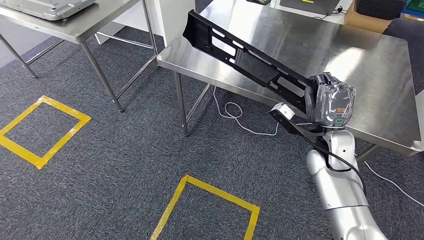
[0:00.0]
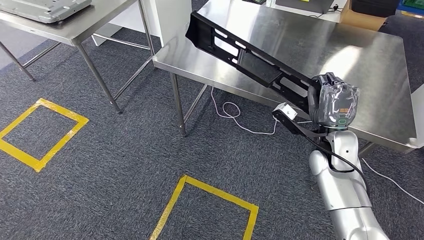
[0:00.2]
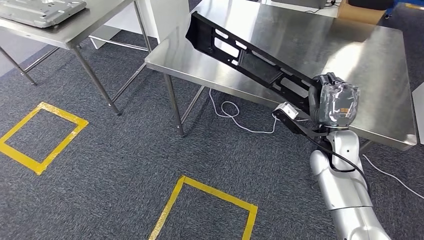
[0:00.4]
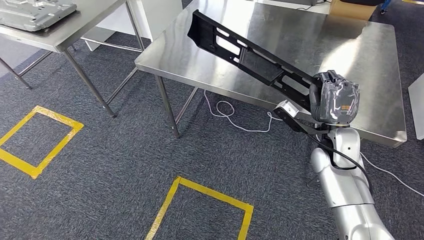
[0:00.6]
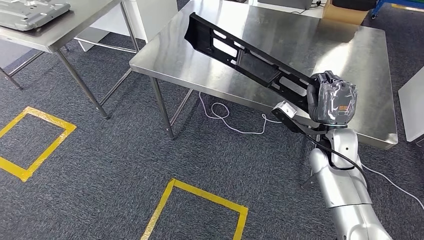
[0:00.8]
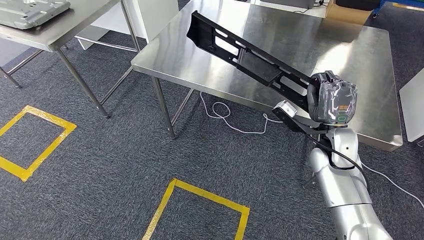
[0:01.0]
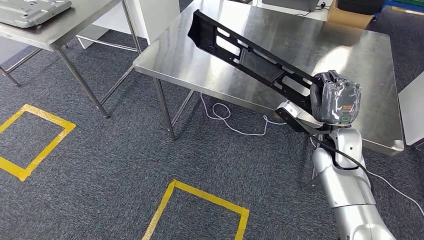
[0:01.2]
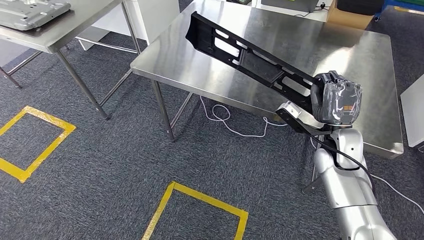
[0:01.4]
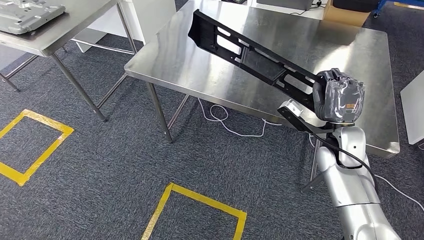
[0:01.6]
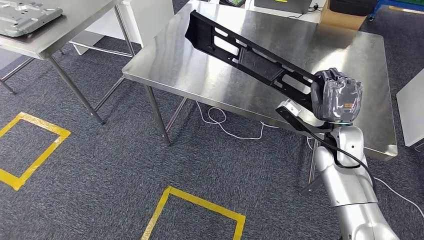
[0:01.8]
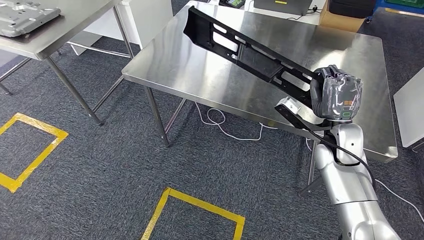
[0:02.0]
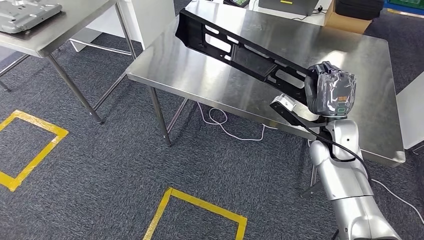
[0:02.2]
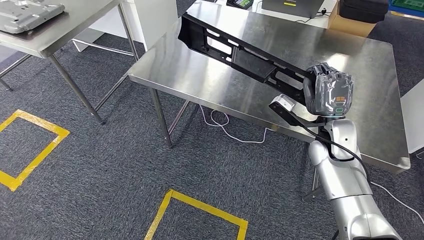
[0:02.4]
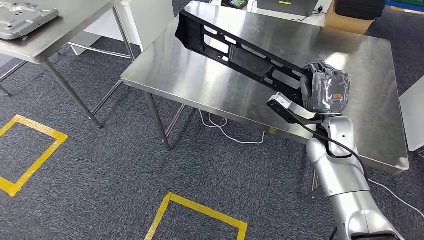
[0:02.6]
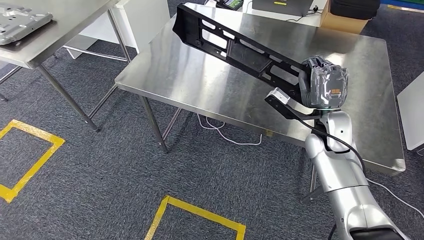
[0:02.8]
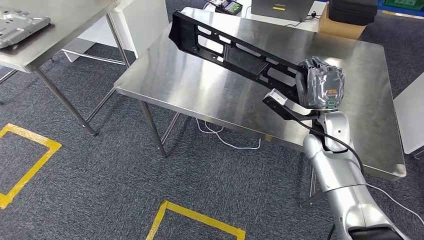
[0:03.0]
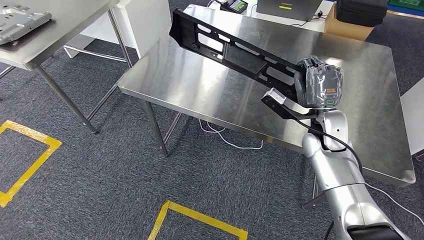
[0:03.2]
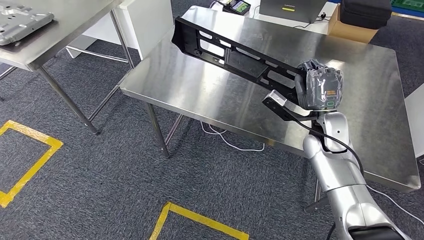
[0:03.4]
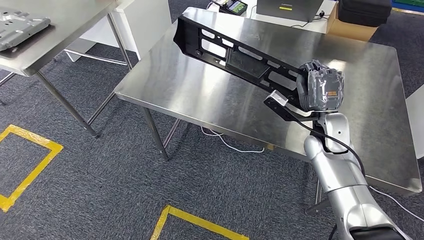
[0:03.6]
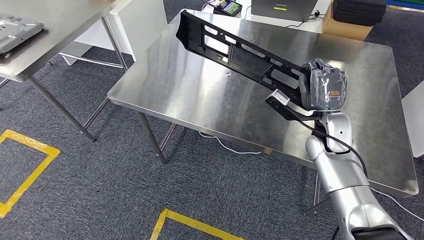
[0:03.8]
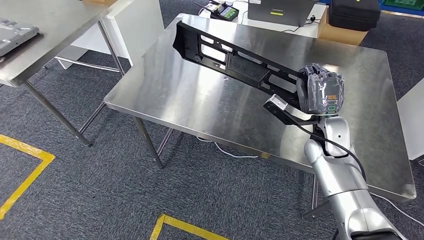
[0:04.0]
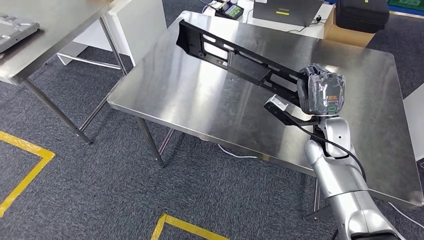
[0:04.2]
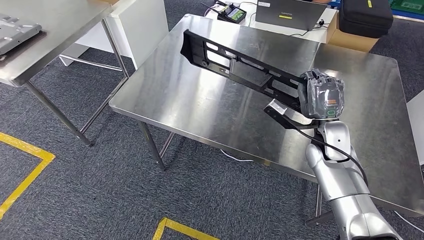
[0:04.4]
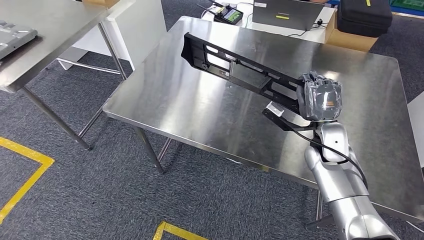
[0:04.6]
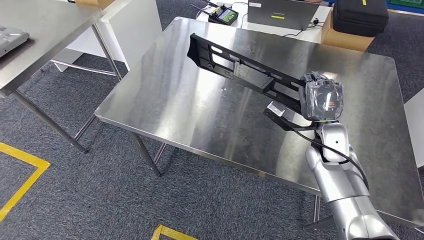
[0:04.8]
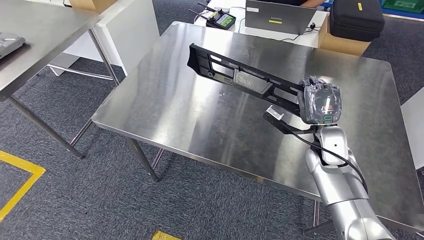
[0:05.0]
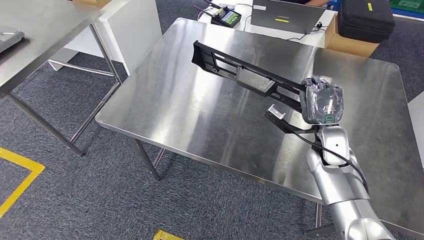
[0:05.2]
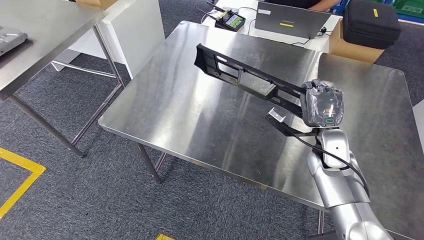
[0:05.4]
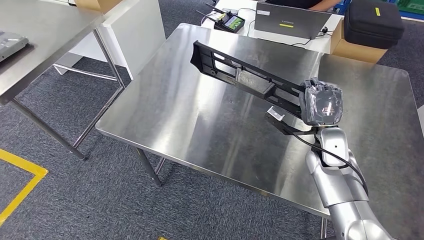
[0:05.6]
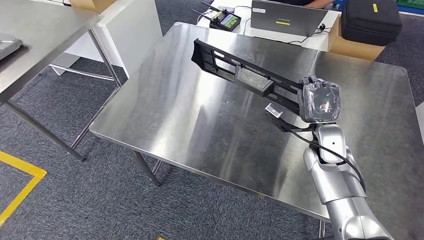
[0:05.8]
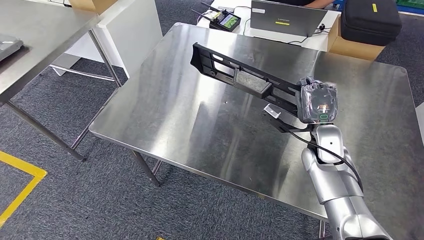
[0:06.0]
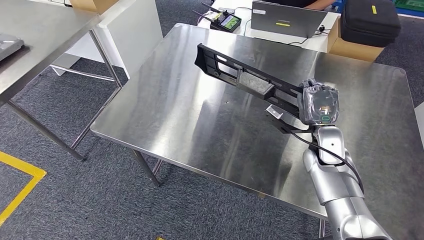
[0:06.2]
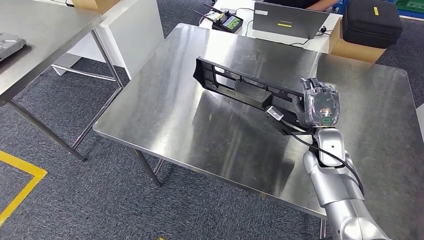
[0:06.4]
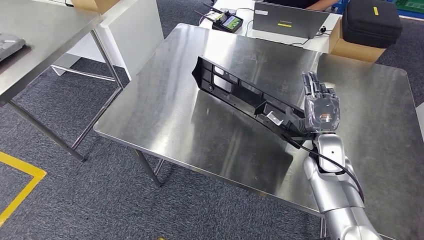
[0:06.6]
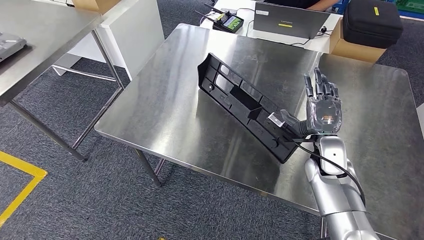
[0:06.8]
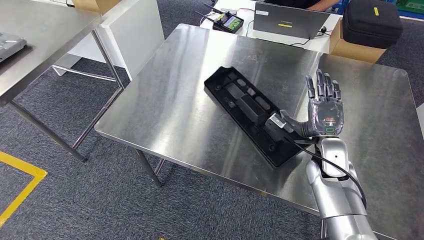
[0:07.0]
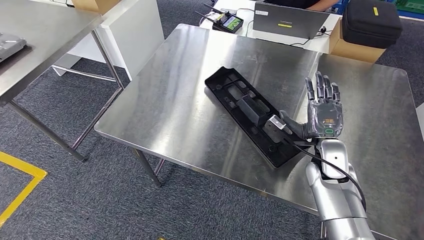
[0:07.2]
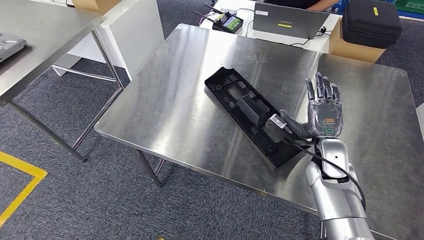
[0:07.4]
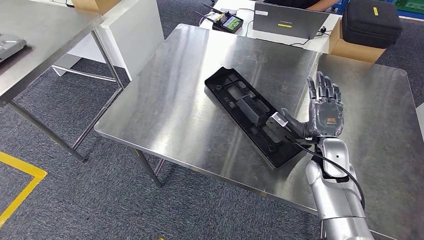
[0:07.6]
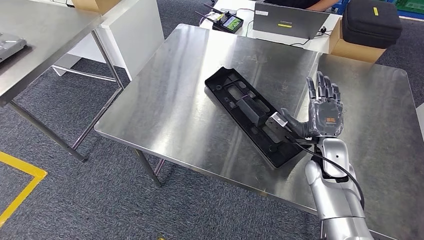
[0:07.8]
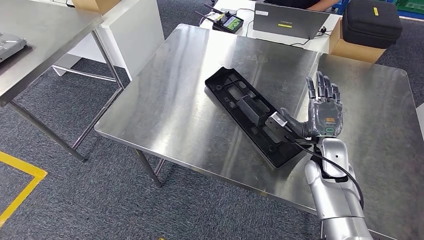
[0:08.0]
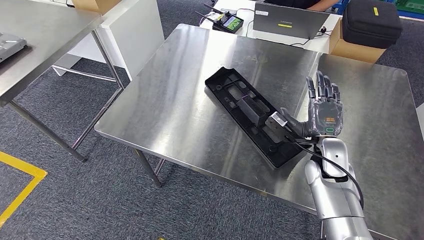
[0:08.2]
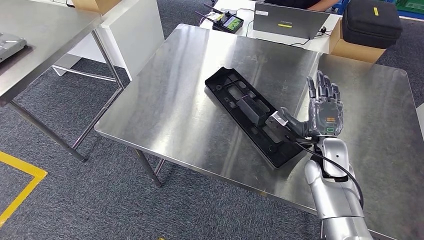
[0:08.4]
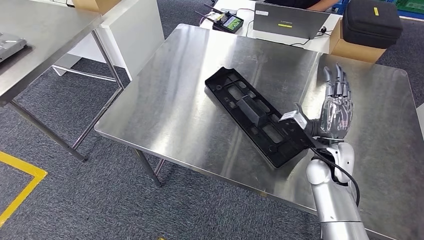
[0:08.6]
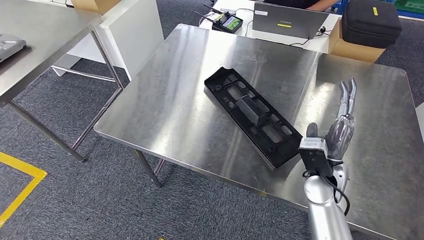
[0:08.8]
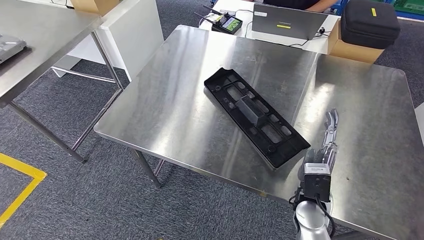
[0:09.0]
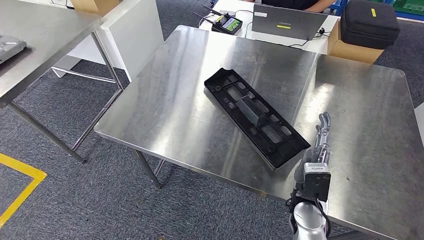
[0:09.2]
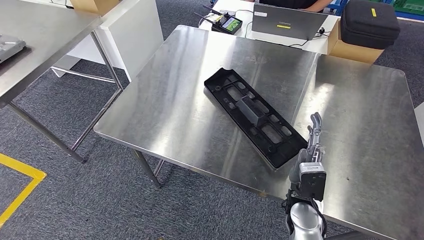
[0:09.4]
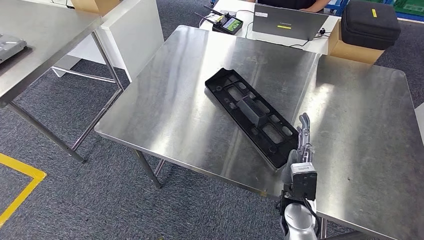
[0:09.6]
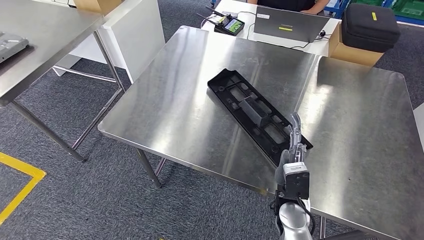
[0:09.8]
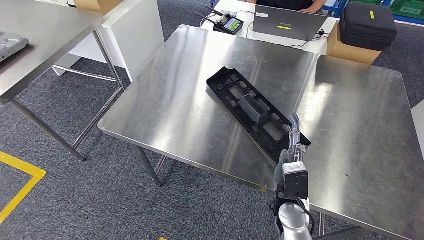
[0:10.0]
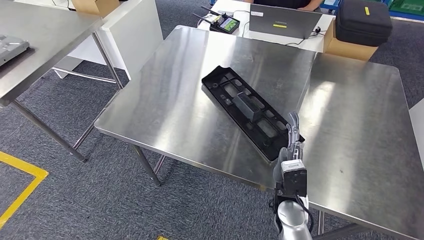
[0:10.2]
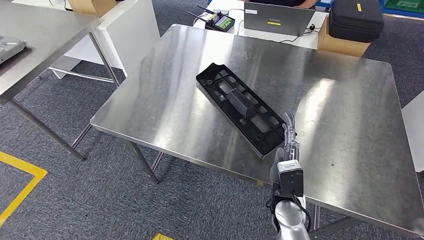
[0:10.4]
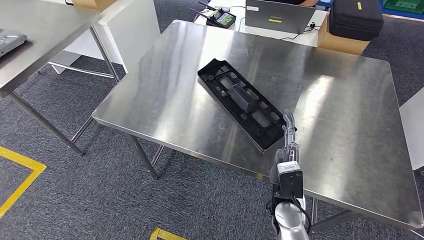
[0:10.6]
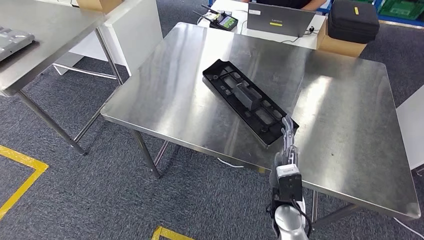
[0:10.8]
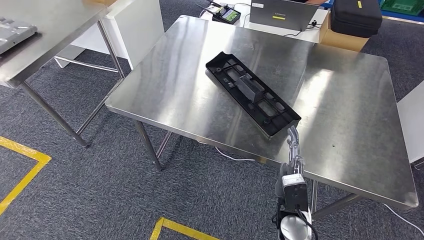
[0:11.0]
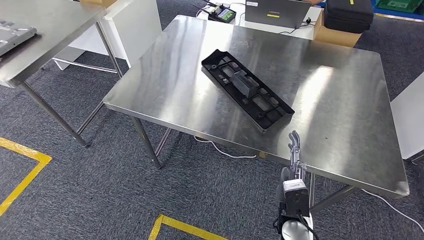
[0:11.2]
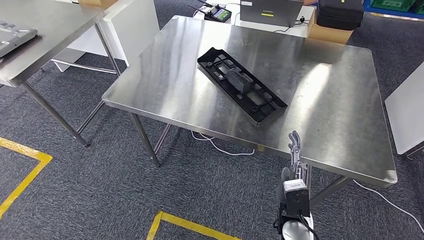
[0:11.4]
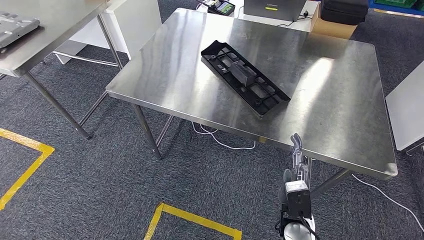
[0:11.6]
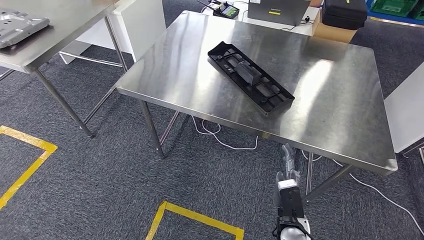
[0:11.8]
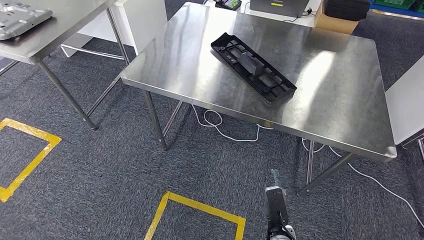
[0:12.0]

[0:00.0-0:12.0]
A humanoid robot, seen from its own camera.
Step, 0:00.0 to 0:03.0: Move the large parts to the workbench.
0:07.6 to 0:09.0: The right hand goes approximately 10 cm backward and to the left.

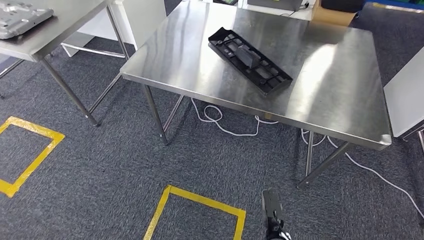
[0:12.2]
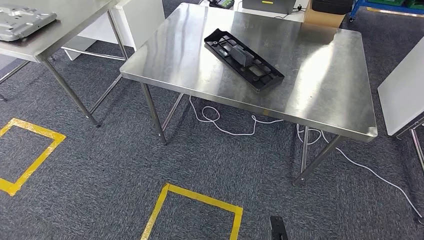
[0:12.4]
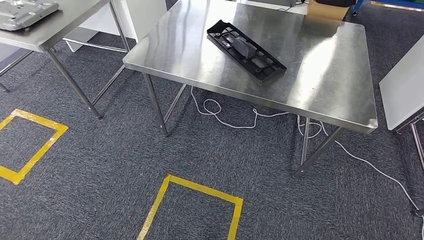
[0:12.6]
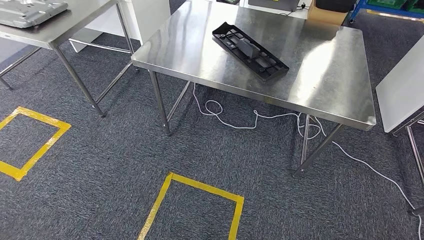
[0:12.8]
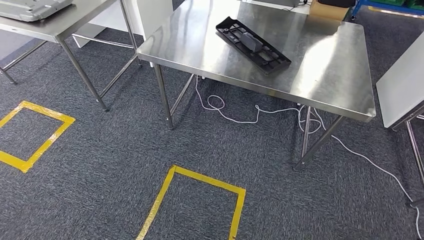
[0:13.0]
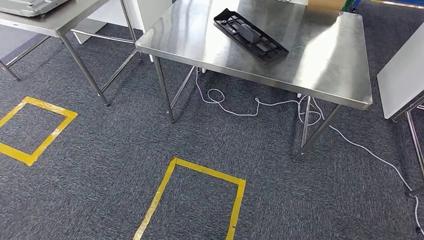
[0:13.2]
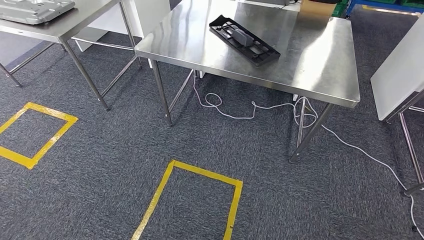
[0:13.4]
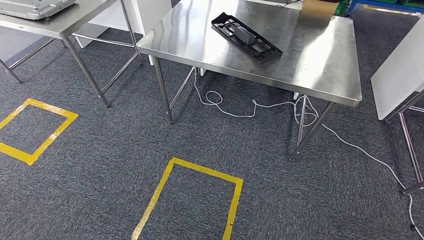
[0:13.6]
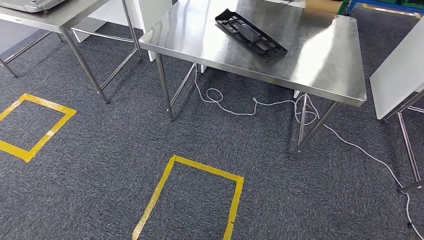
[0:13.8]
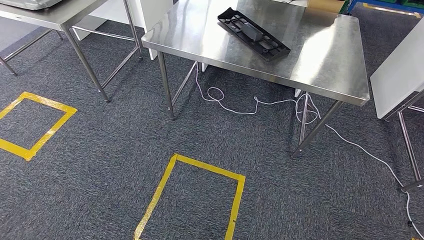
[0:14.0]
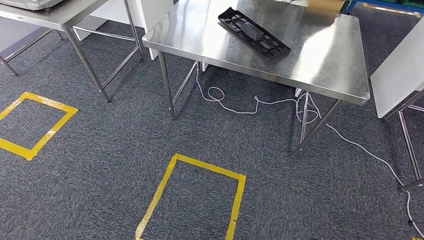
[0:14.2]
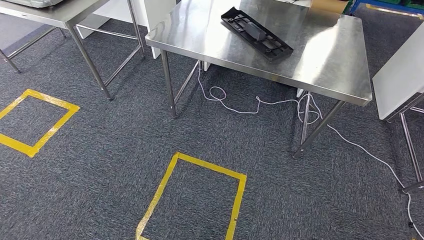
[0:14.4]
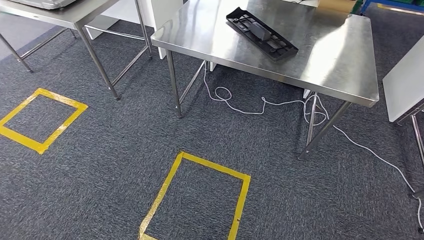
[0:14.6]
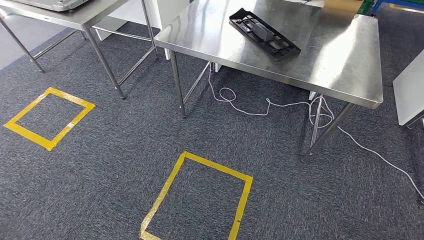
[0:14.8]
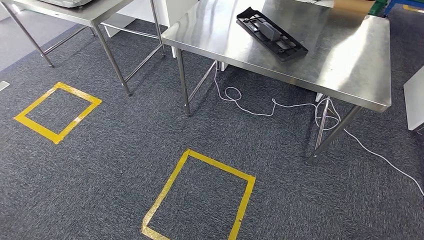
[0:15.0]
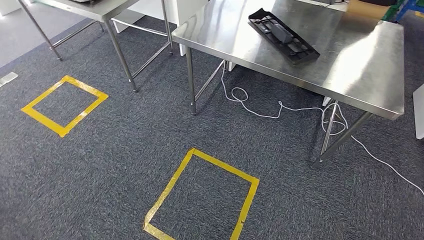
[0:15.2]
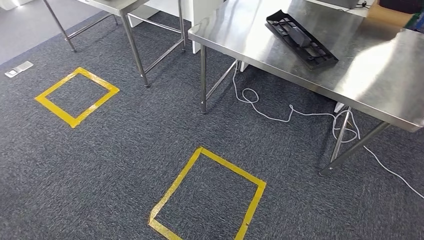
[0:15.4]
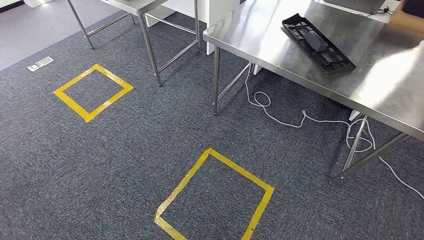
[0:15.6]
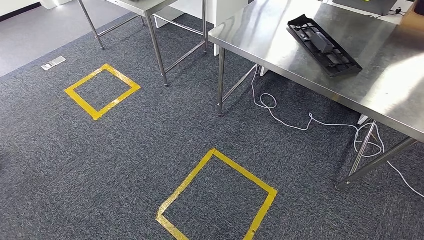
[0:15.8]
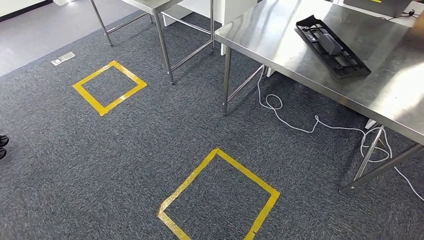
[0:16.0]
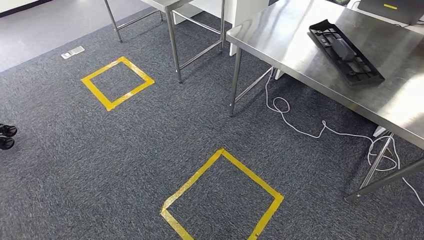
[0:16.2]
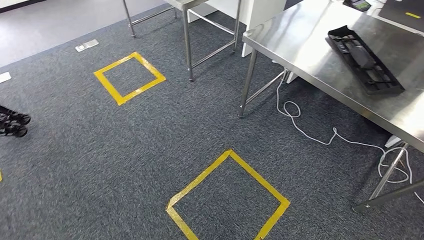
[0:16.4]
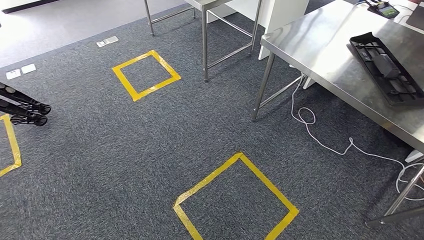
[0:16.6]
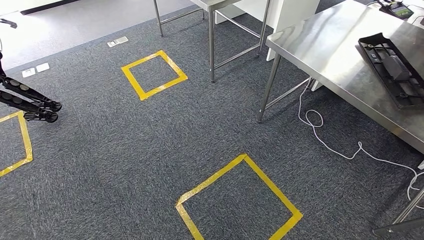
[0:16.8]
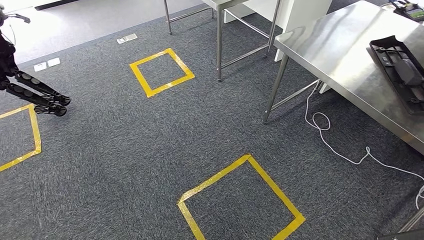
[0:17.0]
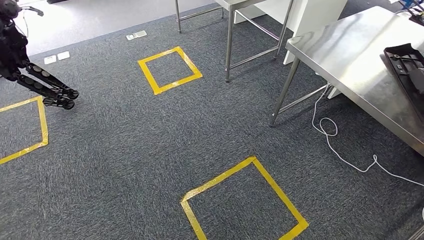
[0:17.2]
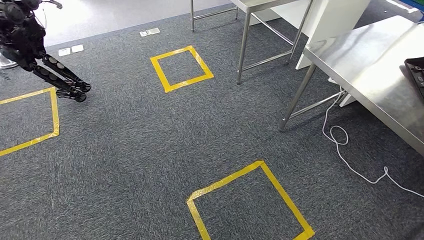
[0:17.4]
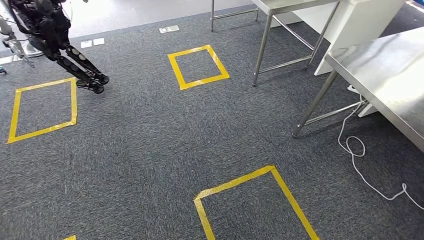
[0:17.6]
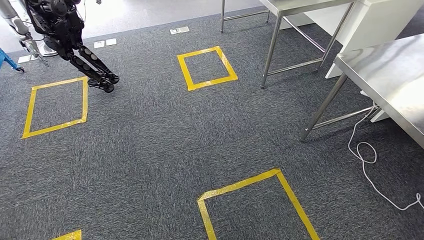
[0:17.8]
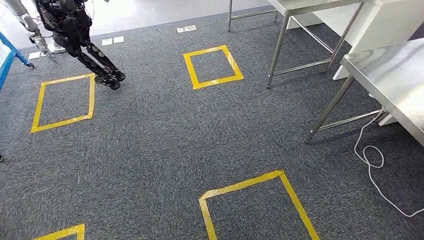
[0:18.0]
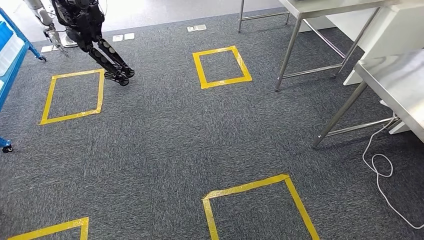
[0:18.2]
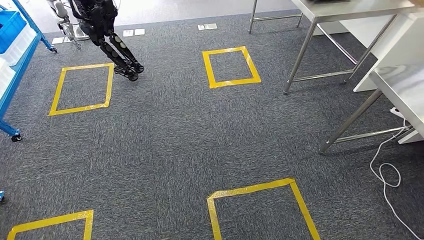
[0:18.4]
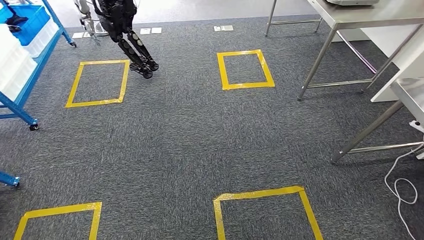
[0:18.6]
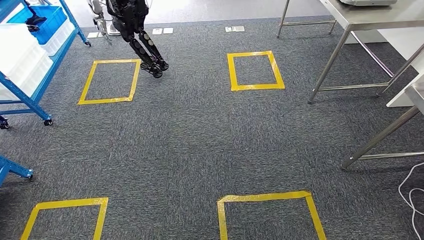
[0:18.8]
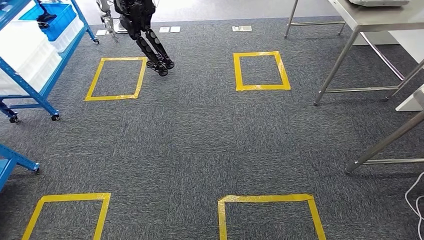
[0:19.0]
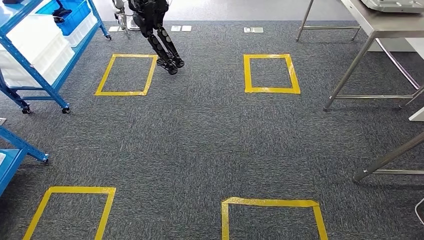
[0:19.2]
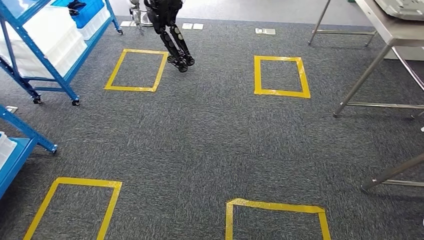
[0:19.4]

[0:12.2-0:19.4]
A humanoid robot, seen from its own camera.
Step, 0:12.2 to 0:14.6: Insert the large parts into the corresponding slots on the workbench.